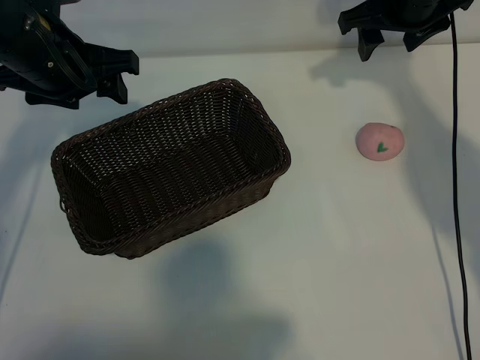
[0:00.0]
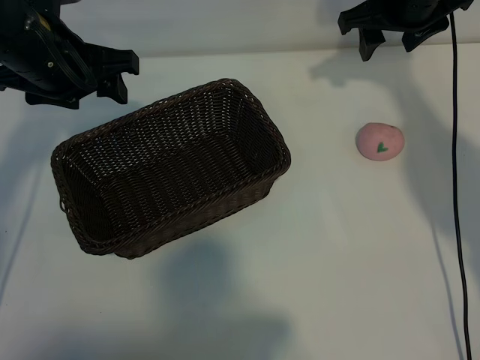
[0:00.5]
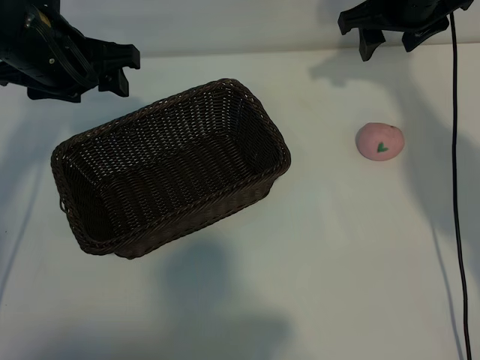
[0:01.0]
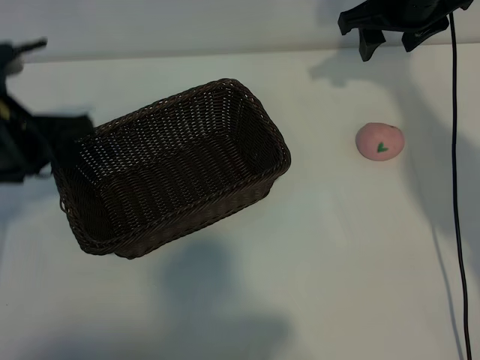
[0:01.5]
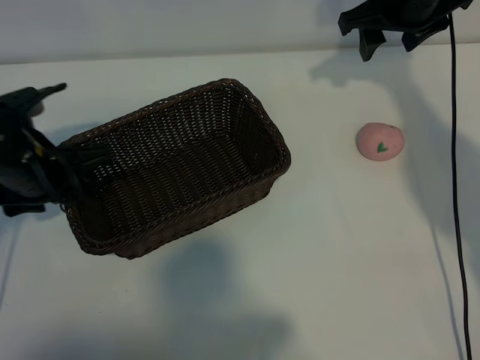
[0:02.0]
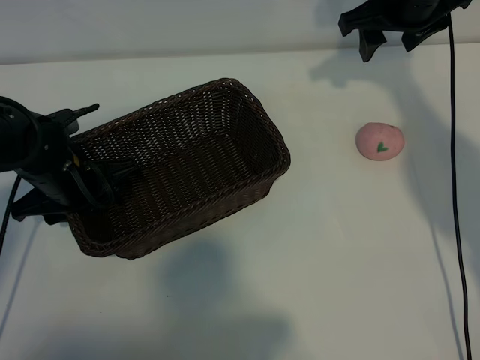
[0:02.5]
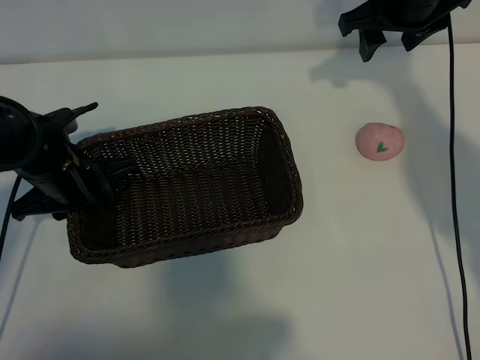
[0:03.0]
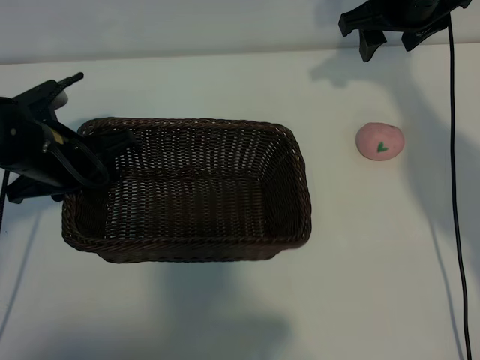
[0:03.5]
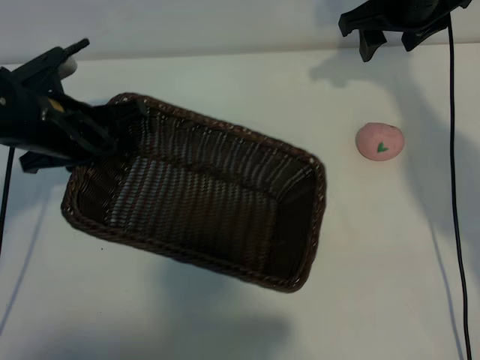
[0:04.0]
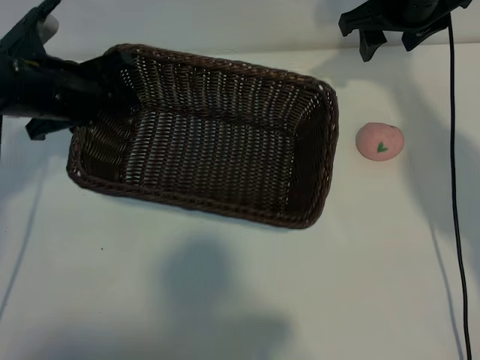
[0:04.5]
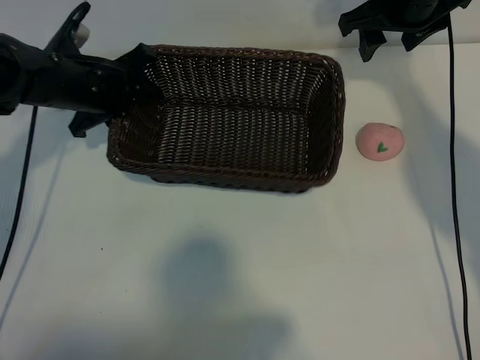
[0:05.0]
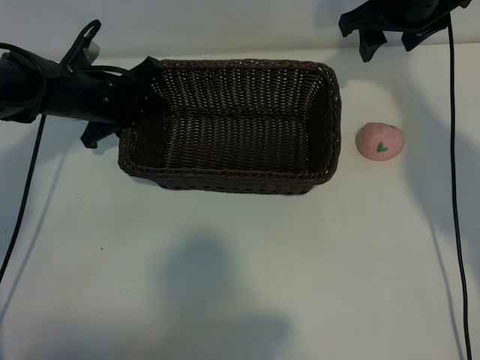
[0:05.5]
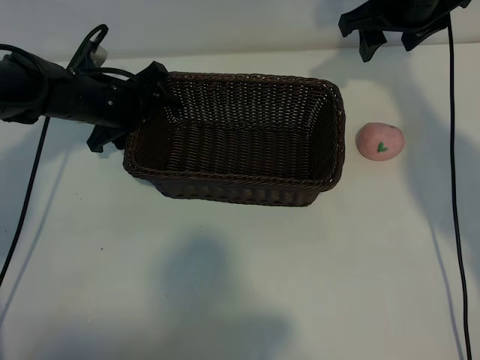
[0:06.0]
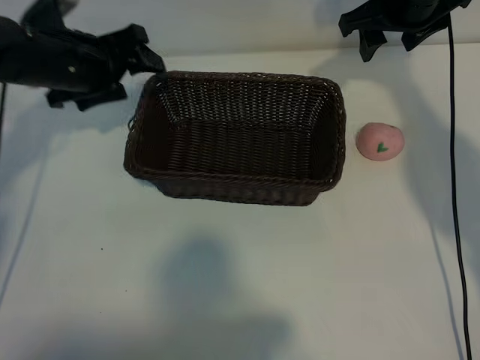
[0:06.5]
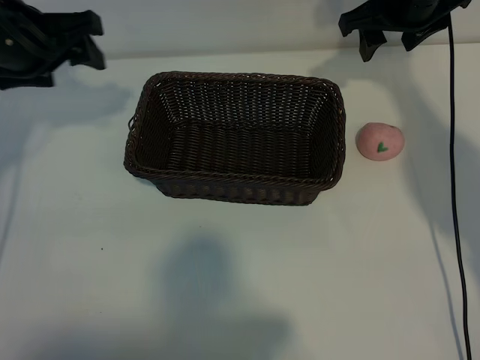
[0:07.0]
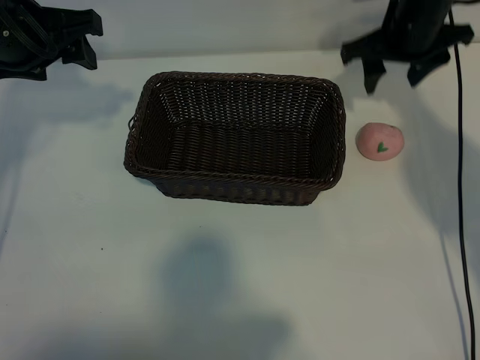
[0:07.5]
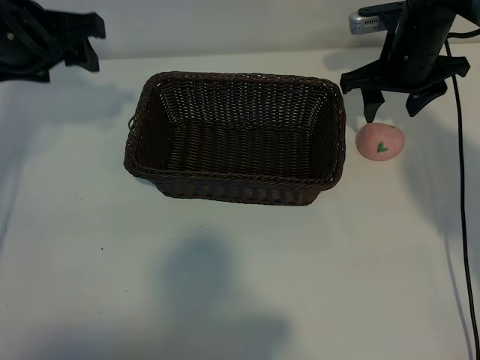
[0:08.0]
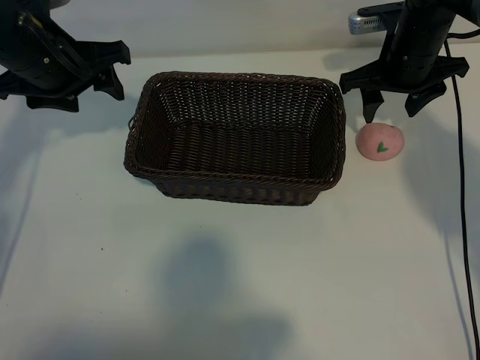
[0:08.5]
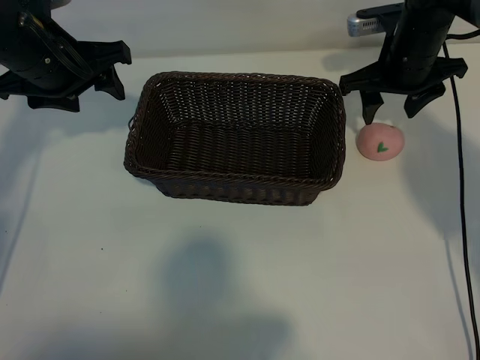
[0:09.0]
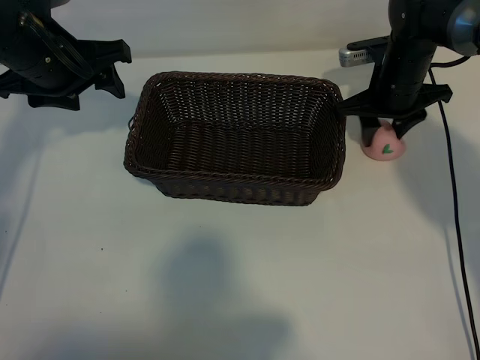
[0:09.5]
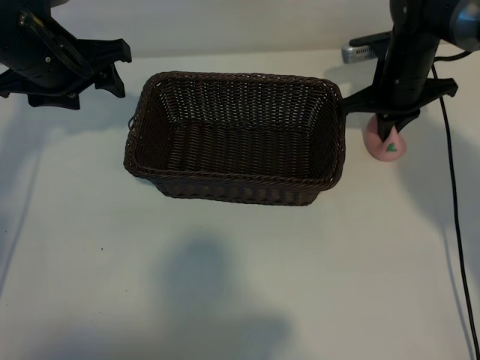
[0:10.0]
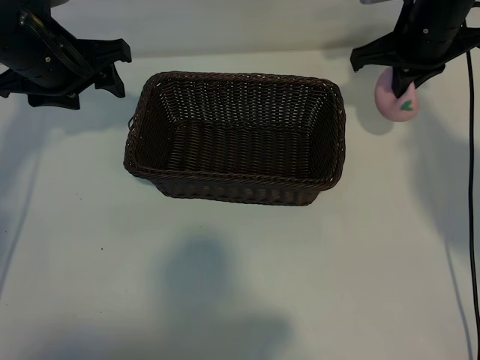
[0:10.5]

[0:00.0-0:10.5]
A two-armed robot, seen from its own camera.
Task of the whole recording: pick up the peach and put it into the basket.
Step, 0:01.0 to 0:02.5: Grasp the basket with left gripper.
Step, 0:03.0 to 0:06.0: Place the basket in the center of view with left gripper.
Step, 0:07.0 to 0:09.5: Grasp the peach with right gripper.
